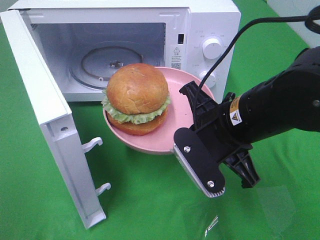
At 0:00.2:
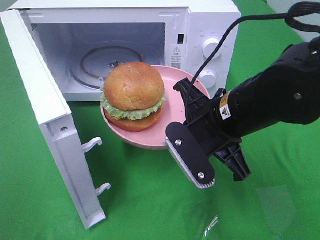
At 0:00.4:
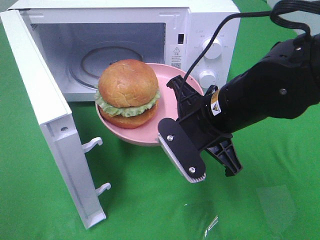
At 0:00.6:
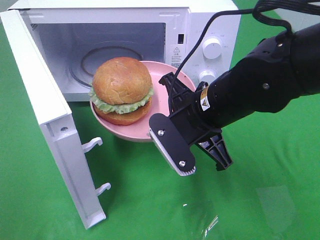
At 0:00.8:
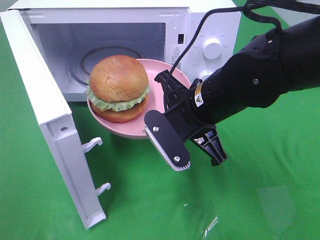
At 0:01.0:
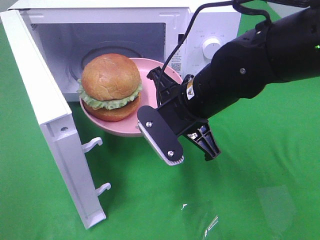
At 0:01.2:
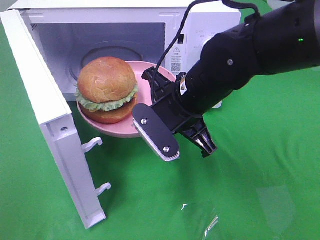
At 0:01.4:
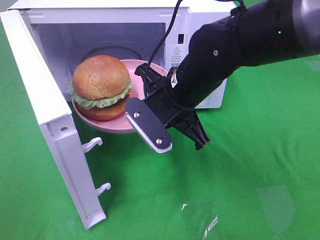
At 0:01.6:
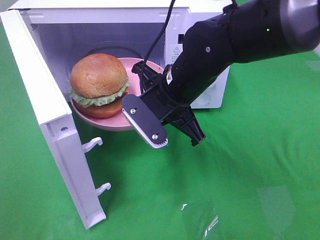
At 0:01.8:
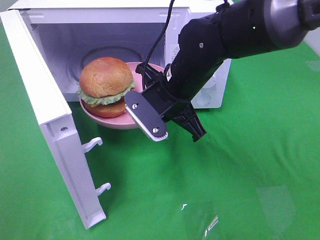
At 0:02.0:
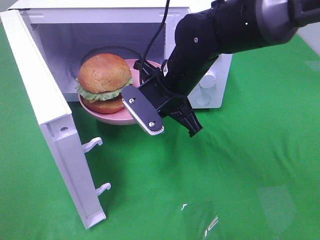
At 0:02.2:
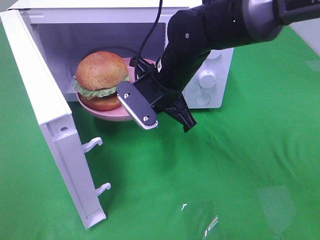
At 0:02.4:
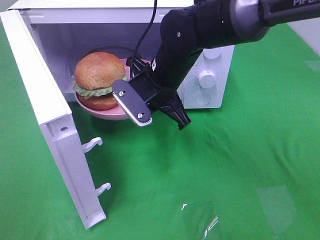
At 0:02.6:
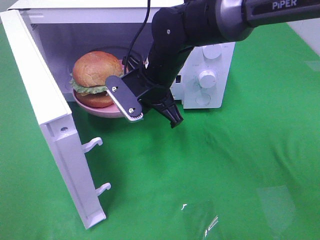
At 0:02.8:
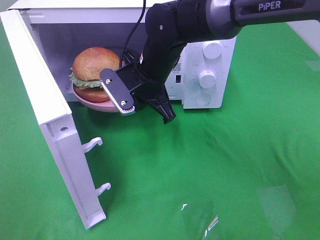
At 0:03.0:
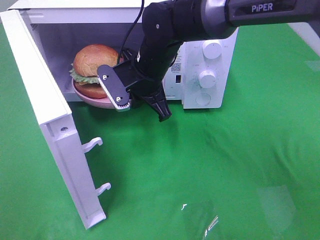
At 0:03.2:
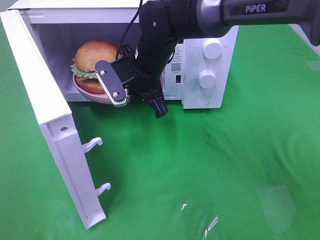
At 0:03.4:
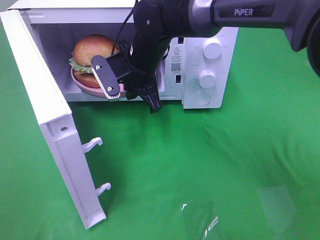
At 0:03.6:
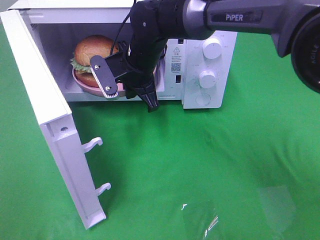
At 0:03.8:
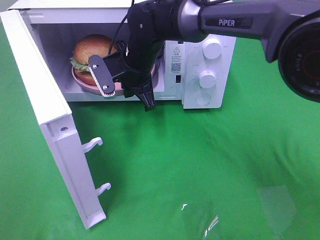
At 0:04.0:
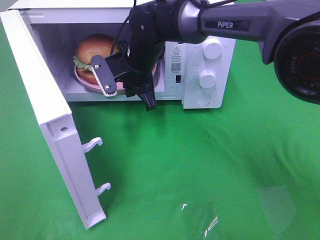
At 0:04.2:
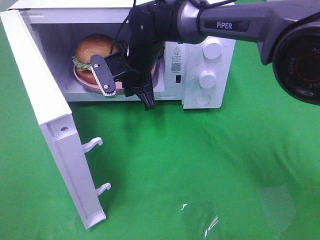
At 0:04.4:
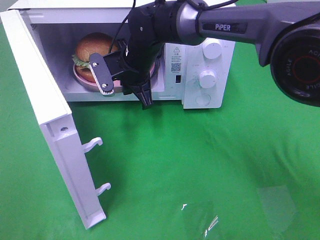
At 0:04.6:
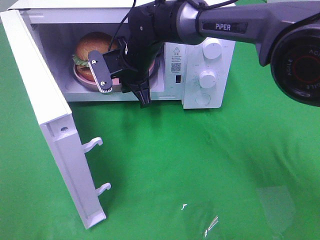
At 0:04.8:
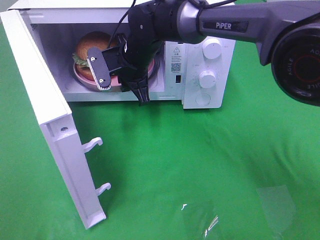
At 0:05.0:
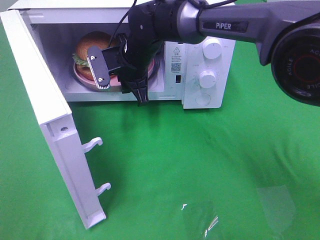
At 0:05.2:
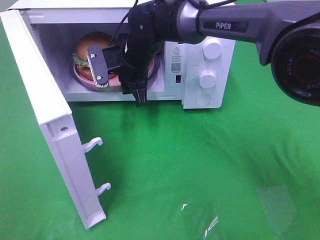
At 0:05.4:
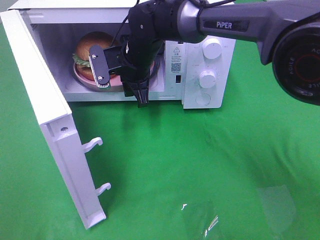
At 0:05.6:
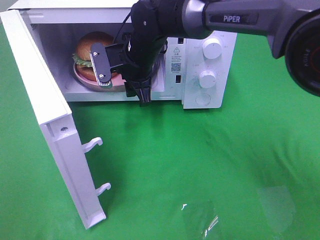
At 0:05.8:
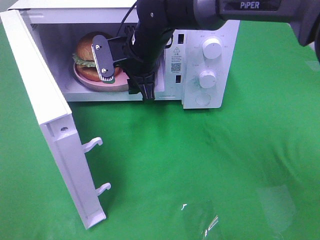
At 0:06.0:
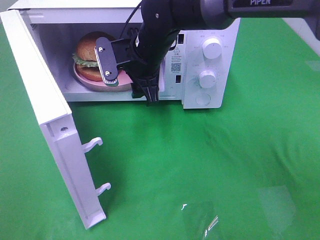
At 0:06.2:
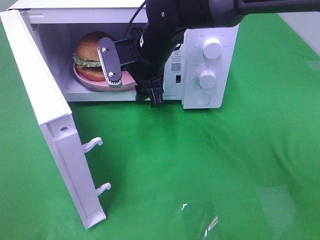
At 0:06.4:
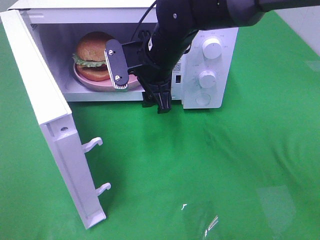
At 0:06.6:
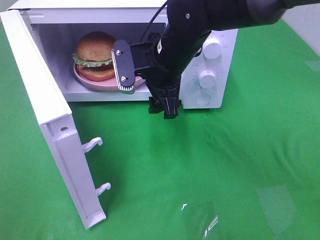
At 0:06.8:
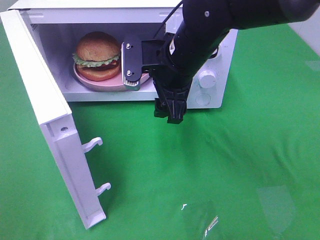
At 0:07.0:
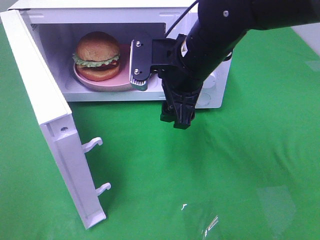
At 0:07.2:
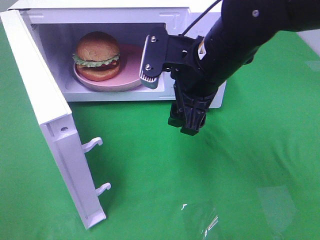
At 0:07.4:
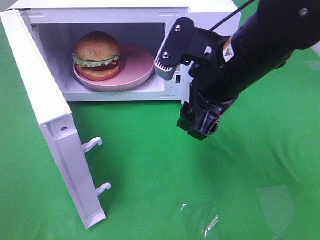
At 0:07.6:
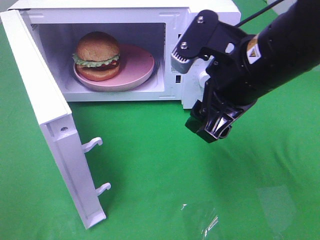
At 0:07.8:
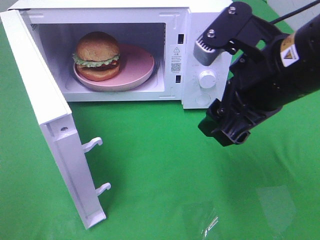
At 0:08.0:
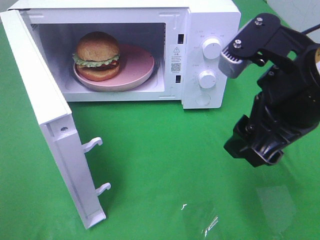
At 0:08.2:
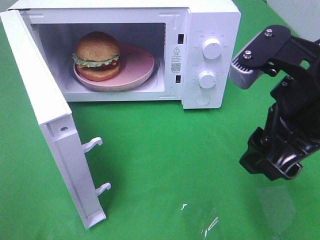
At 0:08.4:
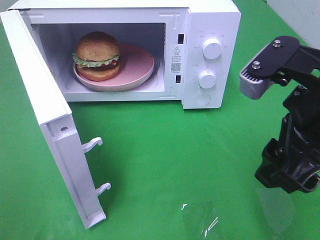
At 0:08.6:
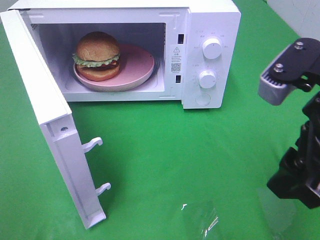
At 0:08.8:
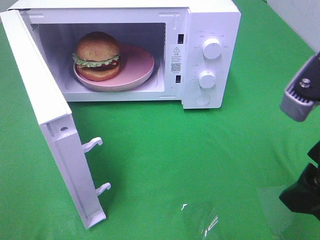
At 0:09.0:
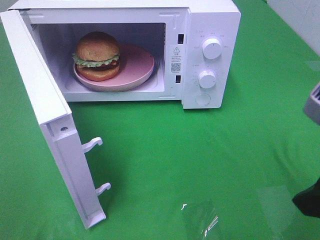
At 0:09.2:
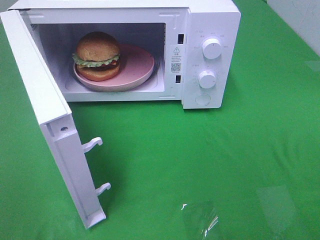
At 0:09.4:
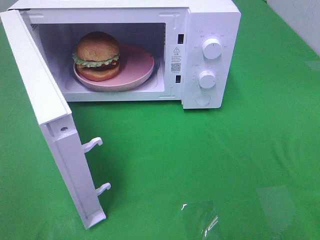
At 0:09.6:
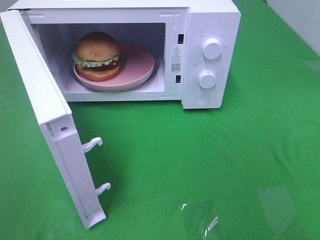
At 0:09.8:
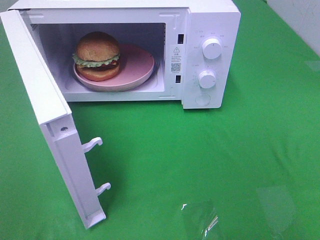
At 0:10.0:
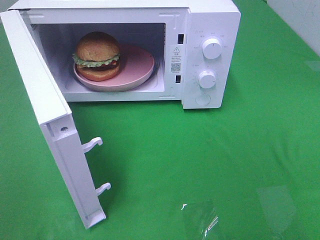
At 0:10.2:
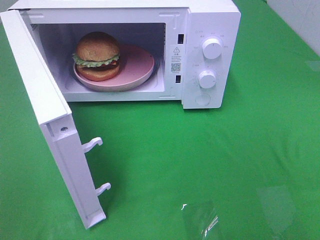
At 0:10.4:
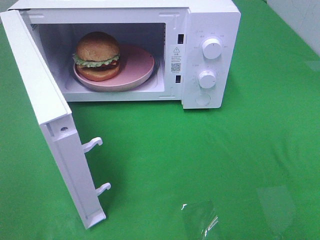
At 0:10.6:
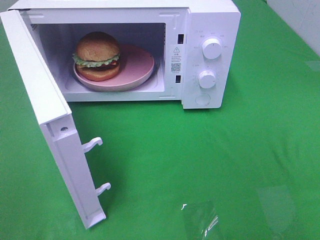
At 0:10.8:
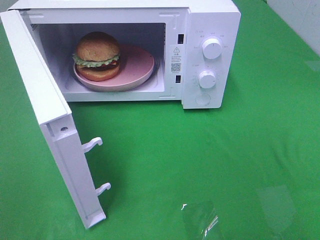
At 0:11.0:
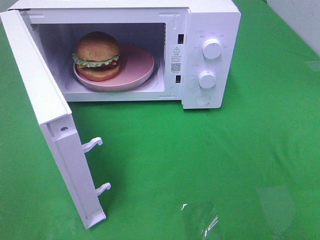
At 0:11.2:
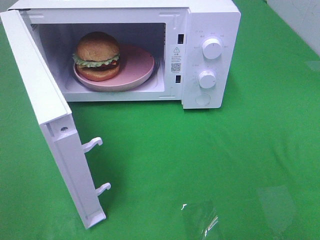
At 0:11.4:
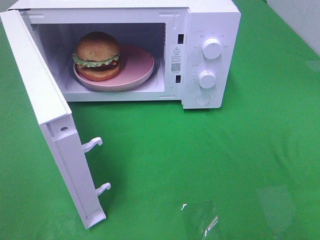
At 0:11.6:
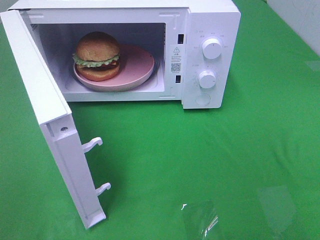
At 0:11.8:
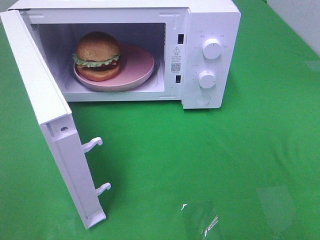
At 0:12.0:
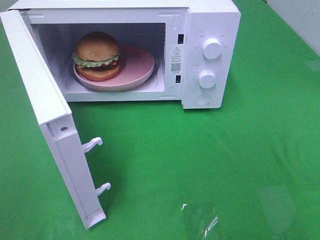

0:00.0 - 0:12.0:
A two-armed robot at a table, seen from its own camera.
Task of the whole recording: Heat the burger.
Step, 0:00.0 - 0:04.8: Right hand: place the plate in the microwave.
0:00.0 - 0:01.6: The right gripper shifts roughly 10 cm forward and to the left.
0:01.6 - 0:03.0: The right gripper goes approximately 10 cm forward.
0:03.0 - 0:04.4: The right gripper ends up roughly 5 cm from where it was.
0:04.4 - 0:06.0: The right gripper opens up.
0:06.0 - 0:07.6: The right gripper shifts roughly 20 cm backward, to the right and upward.
0:07.6 - 0:09.0: The right gripper goes about 15 cm backward and to the right.
0:09.0 - 0:10.4: The right gripper heads backward and to the right, covering about 15 cm.
0:10.4 - 0:12.0: The two grippers keep their place.

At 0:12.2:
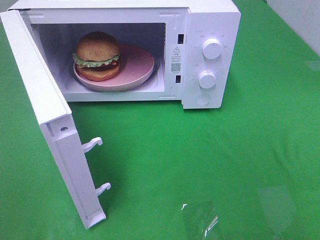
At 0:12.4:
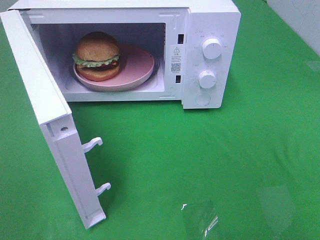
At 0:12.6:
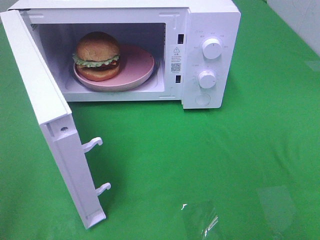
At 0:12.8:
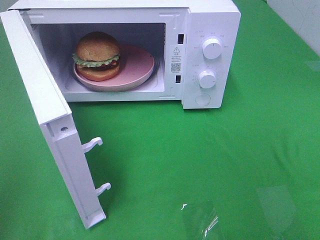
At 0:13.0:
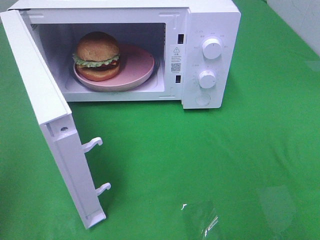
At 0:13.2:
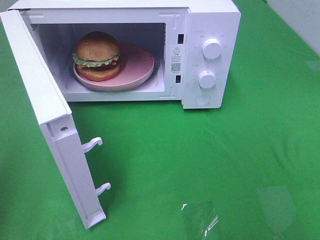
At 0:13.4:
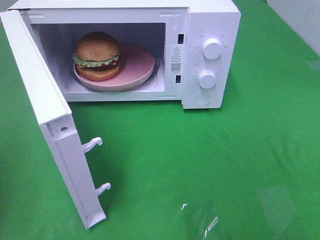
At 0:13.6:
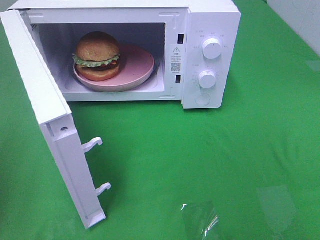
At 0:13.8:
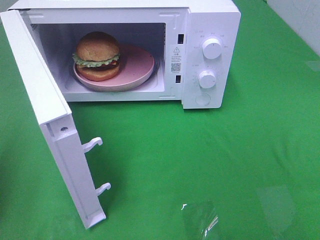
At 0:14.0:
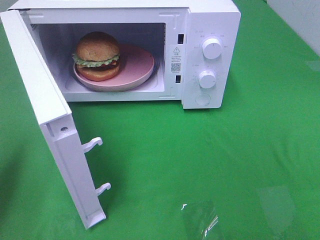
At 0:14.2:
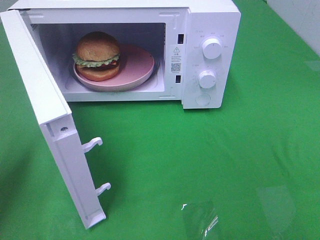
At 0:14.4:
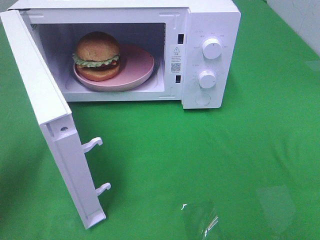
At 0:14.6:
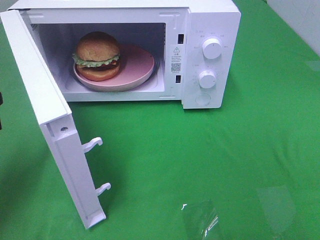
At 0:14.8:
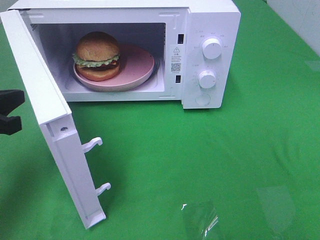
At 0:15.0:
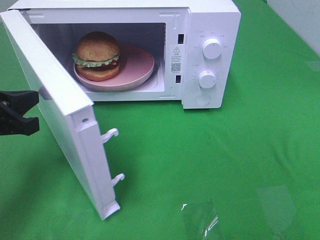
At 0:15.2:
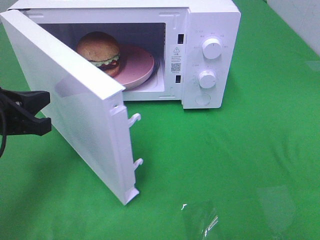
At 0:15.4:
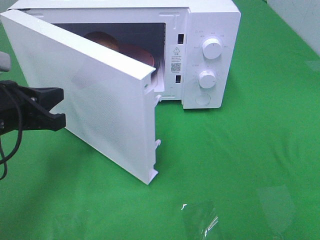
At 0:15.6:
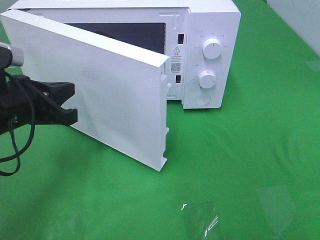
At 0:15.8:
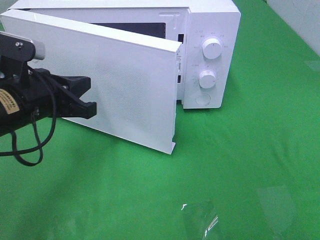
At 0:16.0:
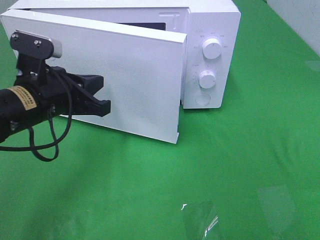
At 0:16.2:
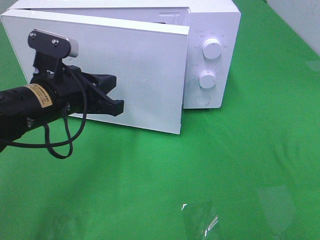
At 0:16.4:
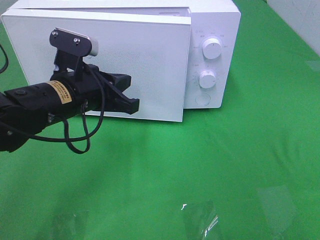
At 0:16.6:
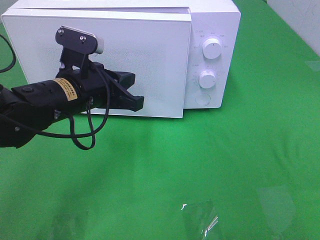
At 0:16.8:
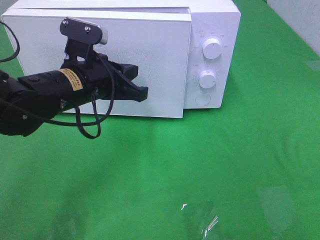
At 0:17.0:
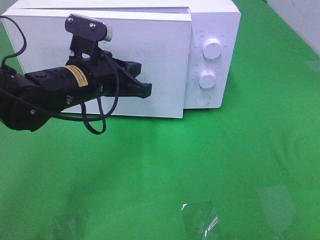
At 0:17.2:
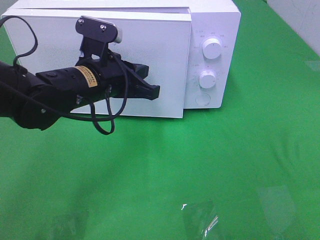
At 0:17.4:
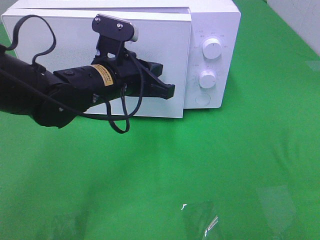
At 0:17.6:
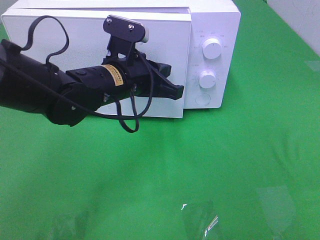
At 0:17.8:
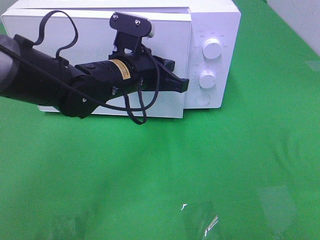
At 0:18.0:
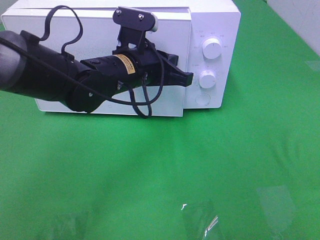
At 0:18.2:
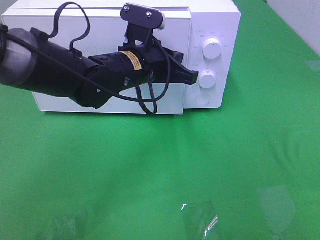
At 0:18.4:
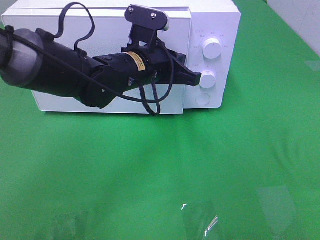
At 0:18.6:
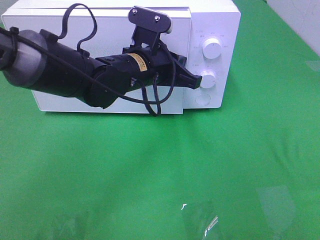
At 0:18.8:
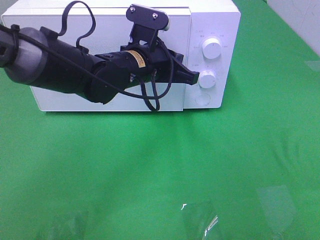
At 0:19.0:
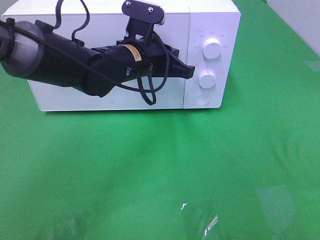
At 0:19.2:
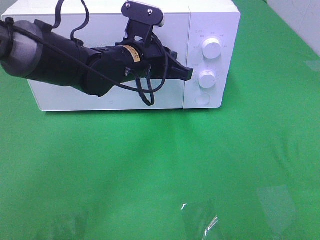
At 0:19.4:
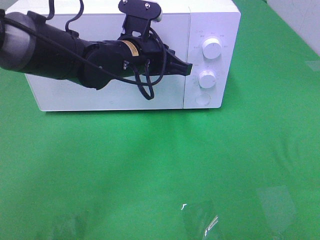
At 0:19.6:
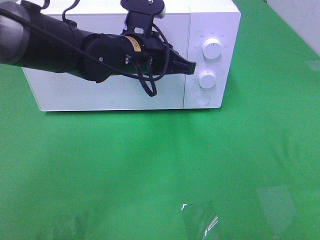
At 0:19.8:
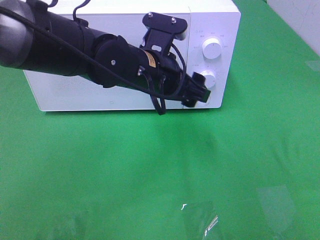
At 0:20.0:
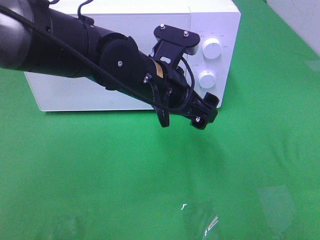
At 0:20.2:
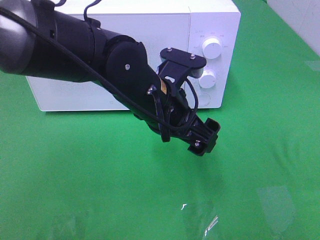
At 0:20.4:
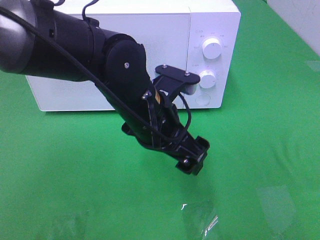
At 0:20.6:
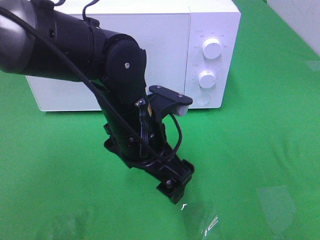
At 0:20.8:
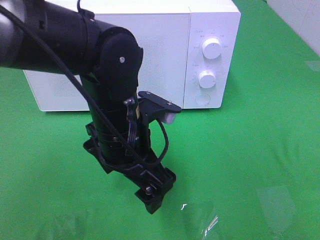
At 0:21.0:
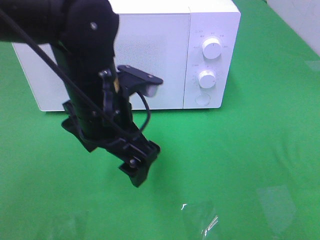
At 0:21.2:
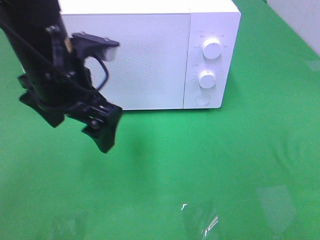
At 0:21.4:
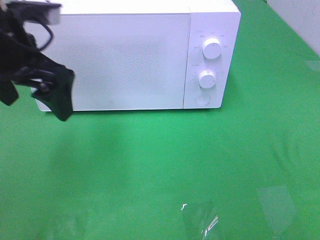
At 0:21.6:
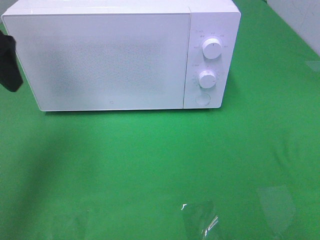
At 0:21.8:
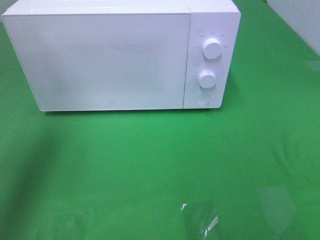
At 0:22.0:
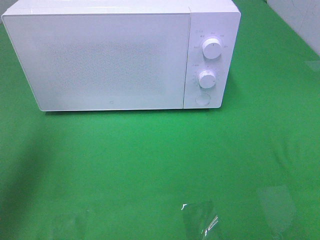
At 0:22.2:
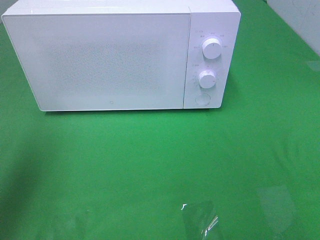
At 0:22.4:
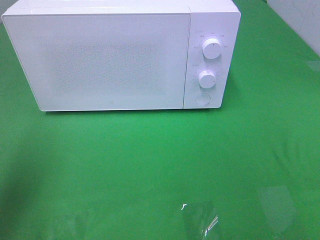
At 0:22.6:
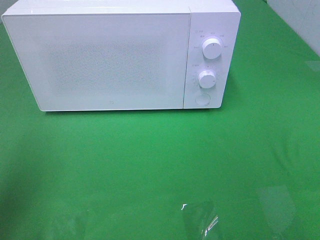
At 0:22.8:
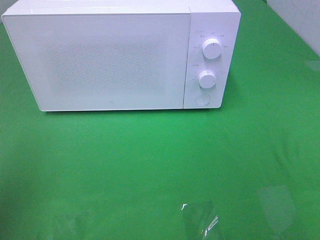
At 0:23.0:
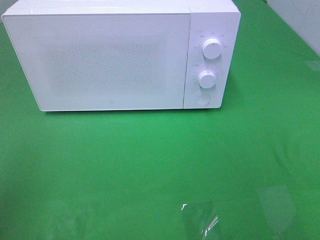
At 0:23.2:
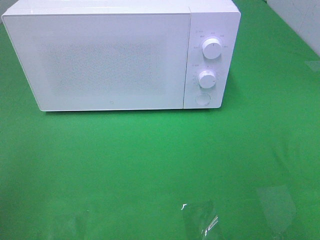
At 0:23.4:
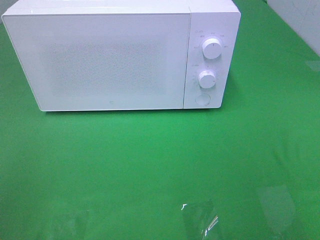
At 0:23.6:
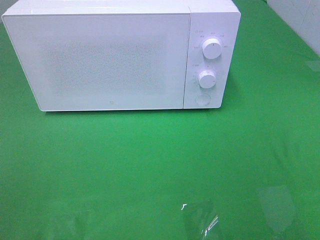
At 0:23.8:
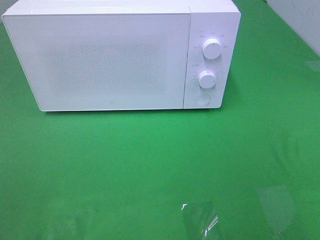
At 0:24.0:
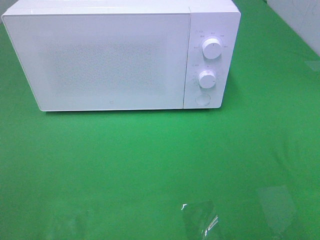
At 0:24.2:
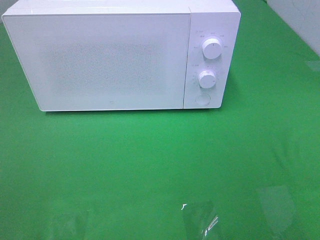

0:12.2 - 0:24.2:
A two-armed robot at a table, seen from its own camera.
Task of the whole recording: Heat the burger.
Step, 0:12.2 - 0:19.4: Left hand: close the microwave door.
0:13.8 - 0:15.2: The left gripper heads to the right, forward and downward, covering about 15 cm.
0:15.2 - 0:16.6: The left gripper moves to the right and forward, approximately 15 cm.
0:16.6 - 0:18.2: The left gripper is displaced to the right and forward by roughly 10 cm.
0:18.2 - 0:19.8: The left gripper opens its fingers.
0:19.8 - 0:21.2: The left gripper shifts about 10 cm to the left and upward.
0:21.2 - 0:22.6: The left gripper goes approximately 20 cm to the left and backward.
0:22.6 - 0:24.2: The left gripper moves backward, about 15 cm.
